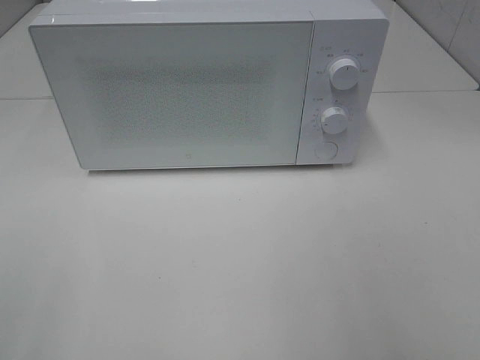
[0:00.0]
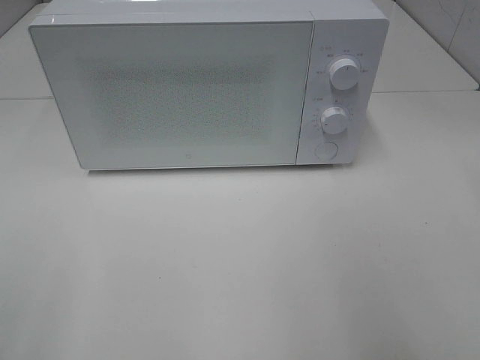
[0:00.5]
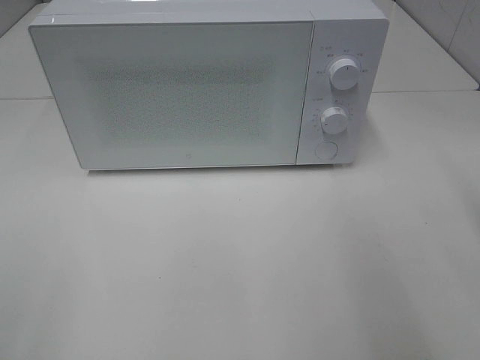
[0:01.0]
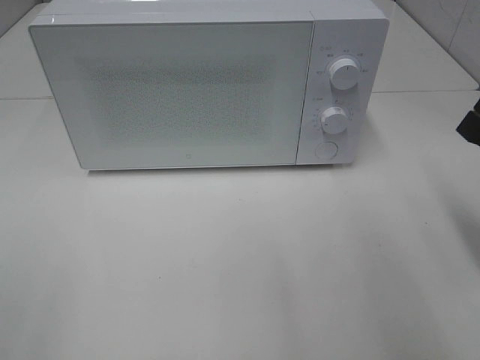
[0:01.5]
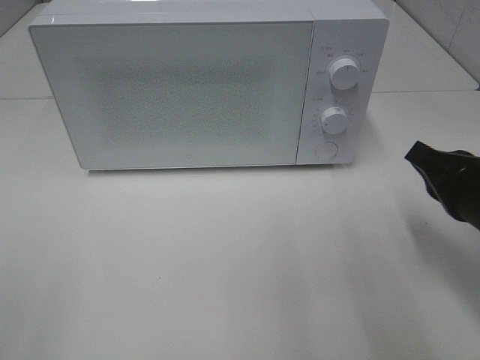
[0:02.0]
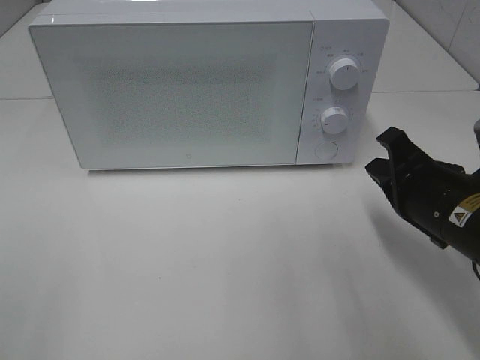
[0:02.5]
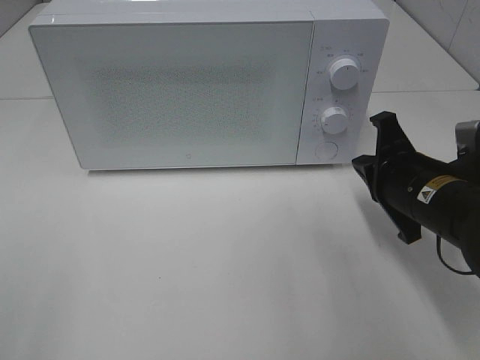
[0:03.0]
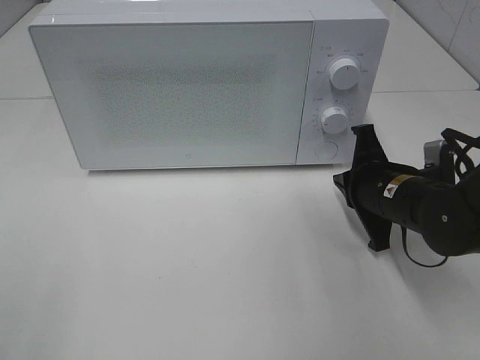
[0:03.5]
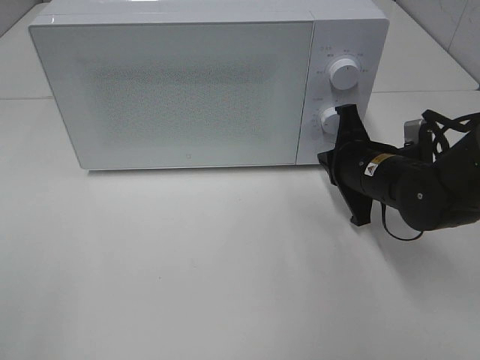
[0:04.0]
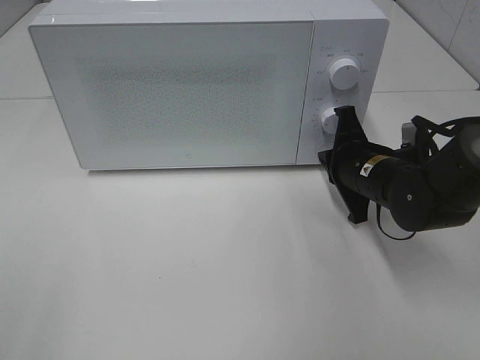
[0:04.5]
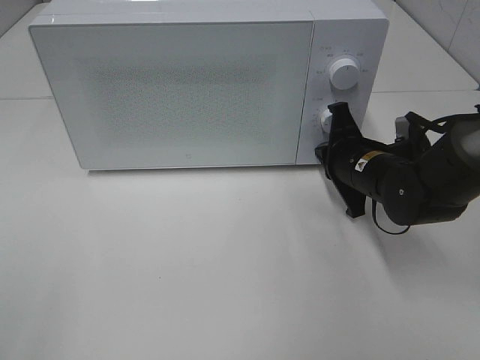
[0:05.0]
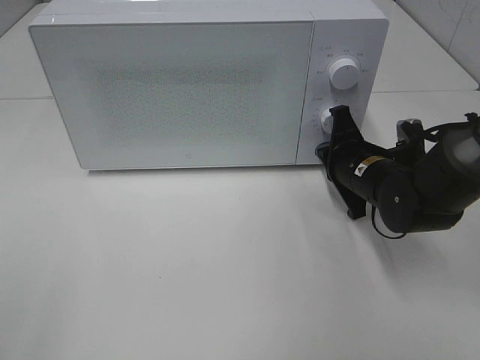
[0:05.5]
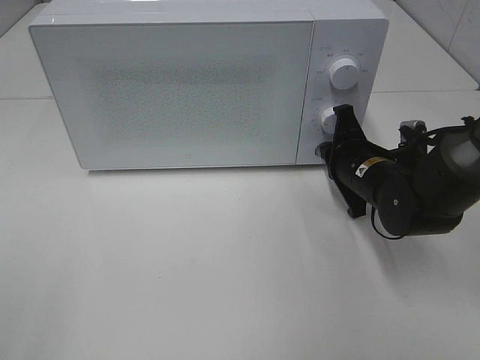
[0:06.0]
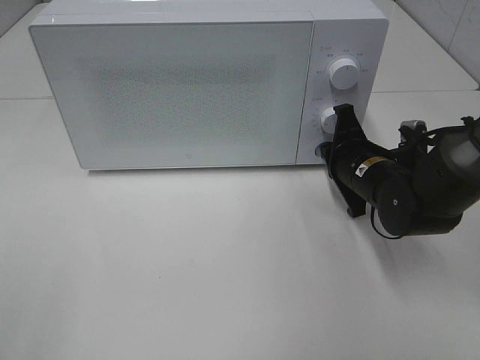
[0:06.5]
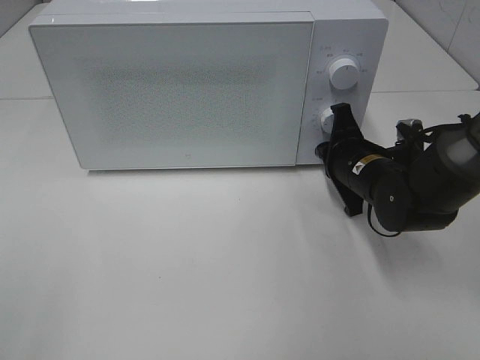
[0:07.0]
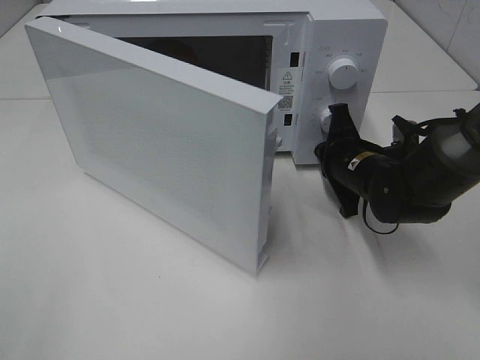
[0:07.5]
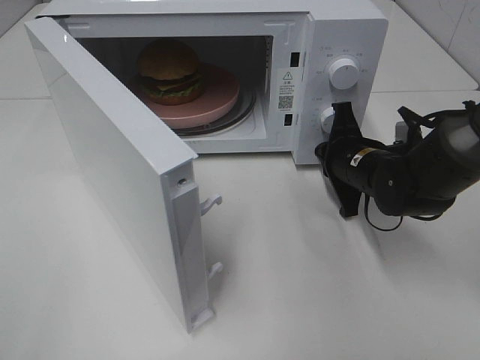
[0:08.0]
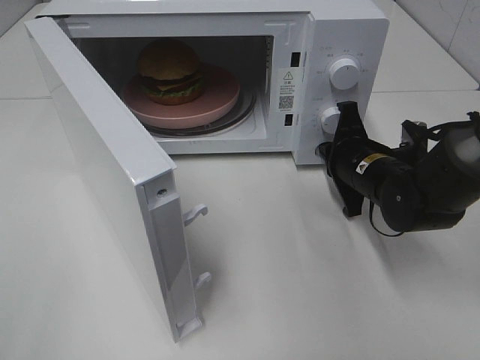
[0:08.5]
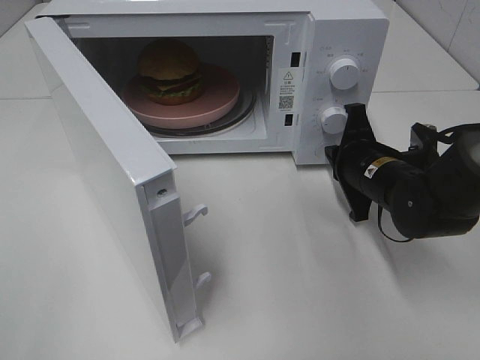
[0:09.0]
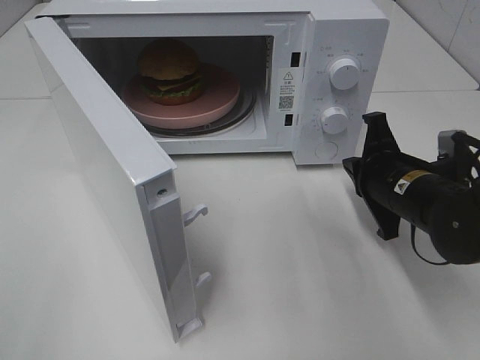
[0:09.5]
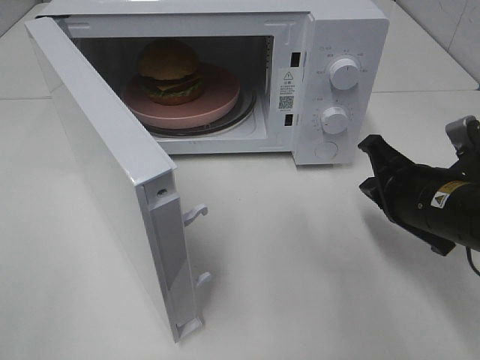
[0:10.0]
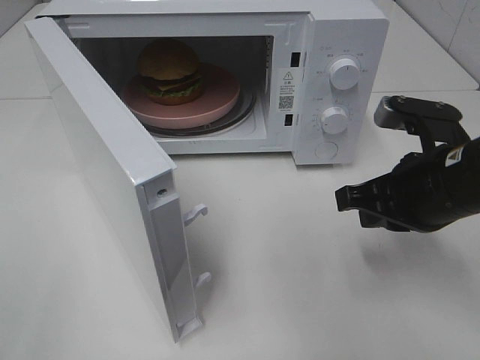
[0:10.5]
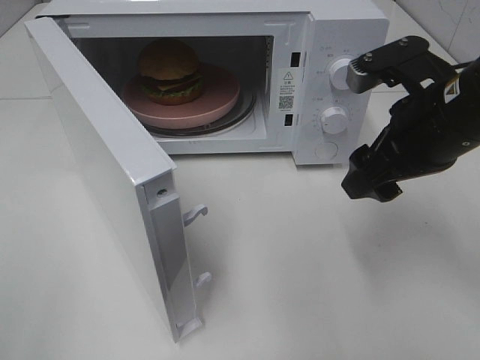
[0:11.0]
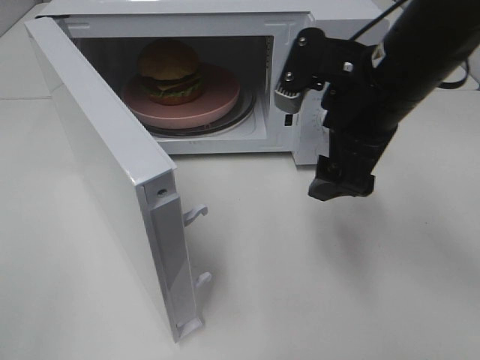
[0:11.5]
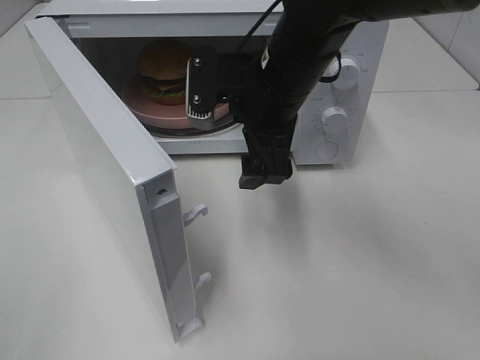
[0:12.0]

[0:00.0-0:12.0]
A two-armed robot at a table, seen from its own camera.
Task of the whole recording: Heat the burger.
Step, 0.0 to 8.5 s: Right hand: press the switch.
0.0 to 2.0 s: The right gripper heads forward and downward, covering about 25 cm, and closes its fingers.
2.0 to 4.0 s: The right gripper moves forward, to the left and downward, approximately 15 cm.
4.0 to 6.0 s: The grippers stay close to where they were, moving slightly.
8.0 to 10.0 s: The right gripper travels backward and upward by some 10 cm.
10.0 to 12.0 s: The right gripper moves to the left, upward and forward, some 20 cm, and opens up.

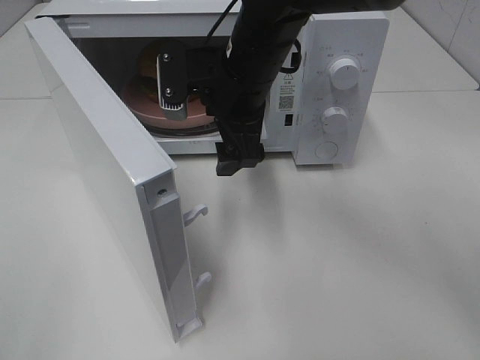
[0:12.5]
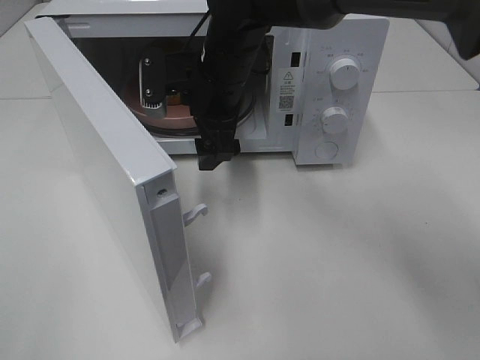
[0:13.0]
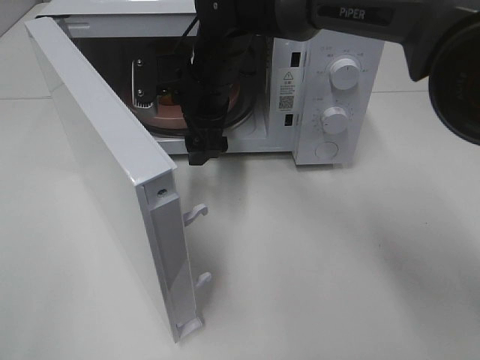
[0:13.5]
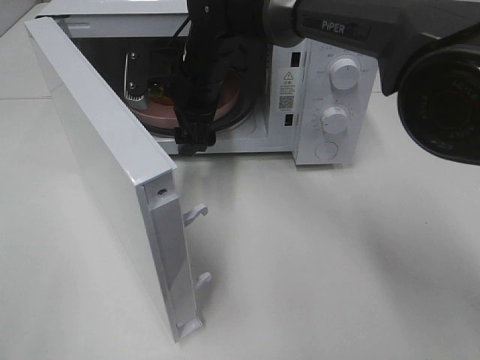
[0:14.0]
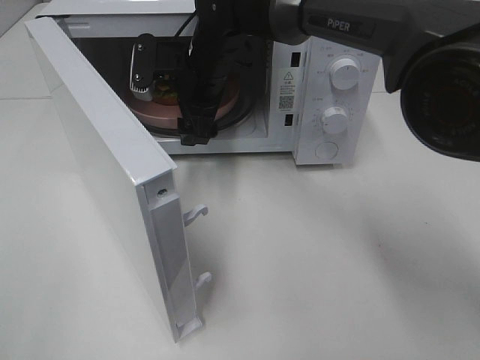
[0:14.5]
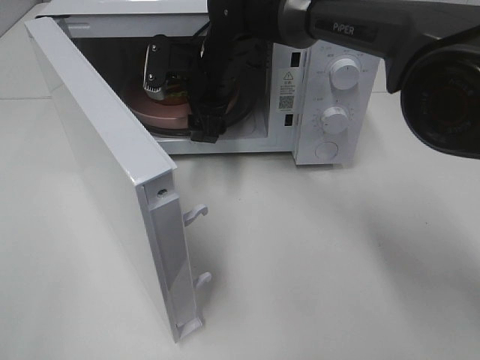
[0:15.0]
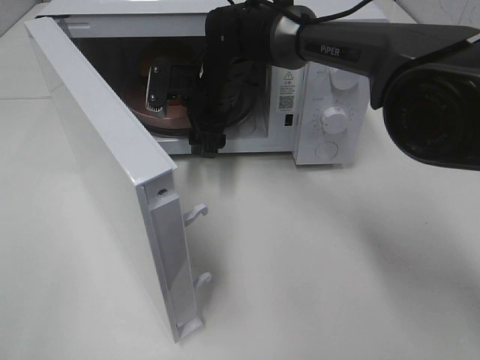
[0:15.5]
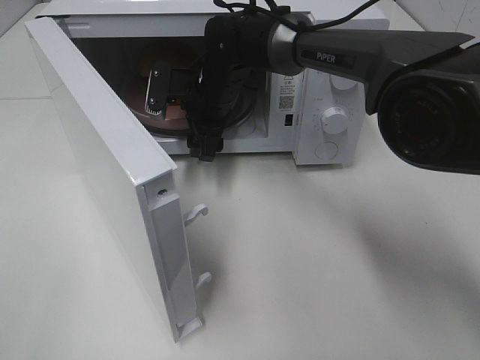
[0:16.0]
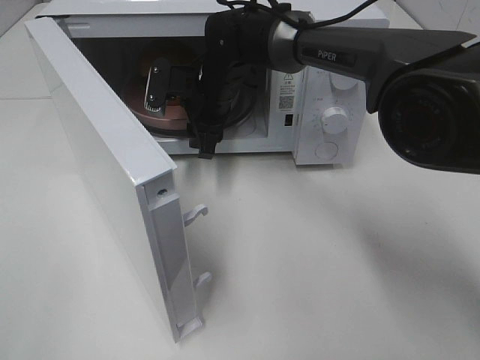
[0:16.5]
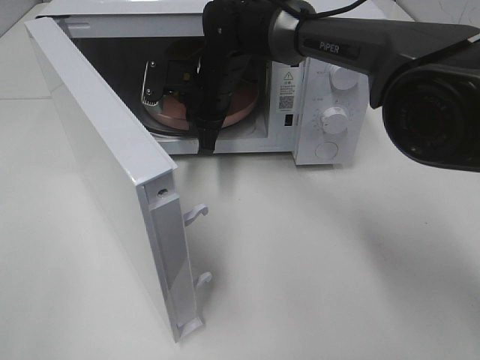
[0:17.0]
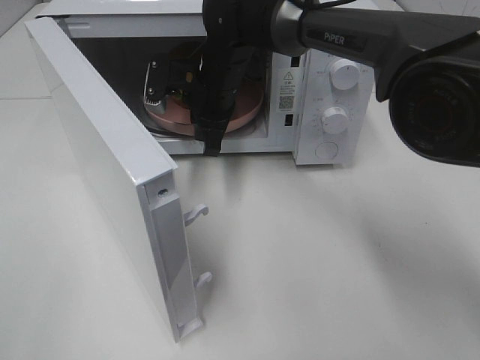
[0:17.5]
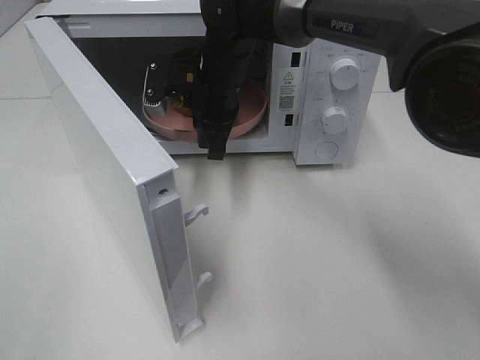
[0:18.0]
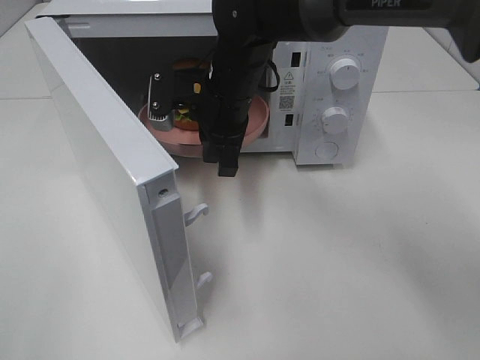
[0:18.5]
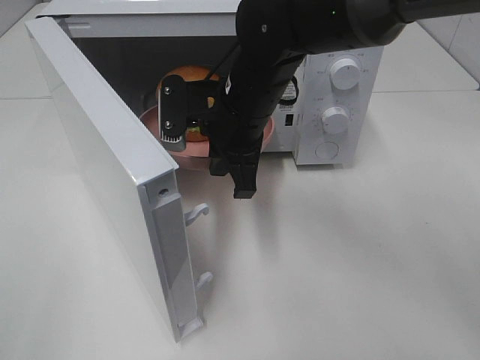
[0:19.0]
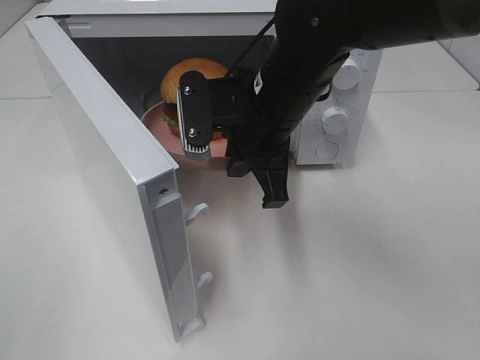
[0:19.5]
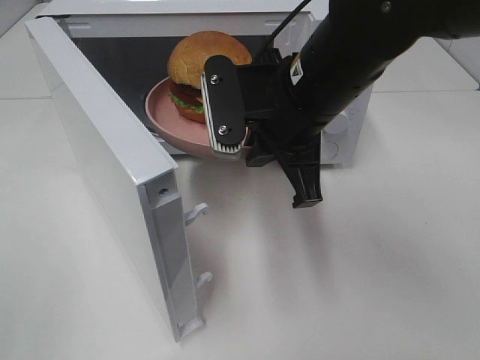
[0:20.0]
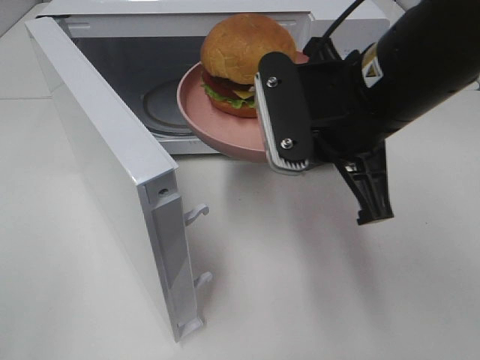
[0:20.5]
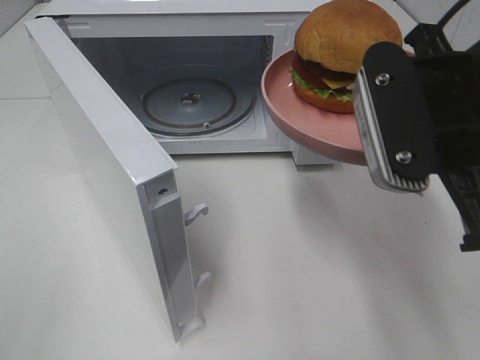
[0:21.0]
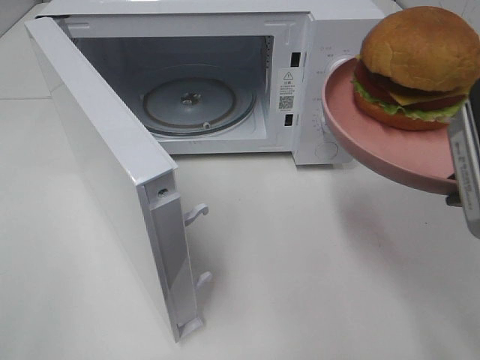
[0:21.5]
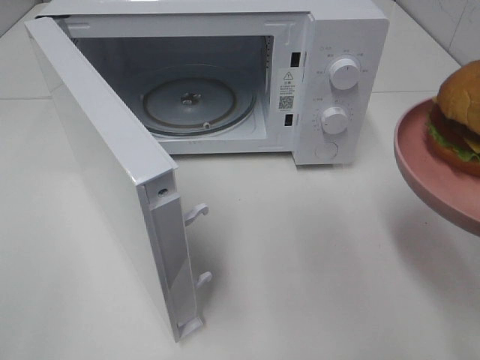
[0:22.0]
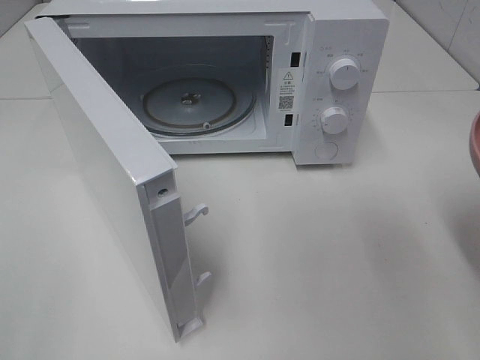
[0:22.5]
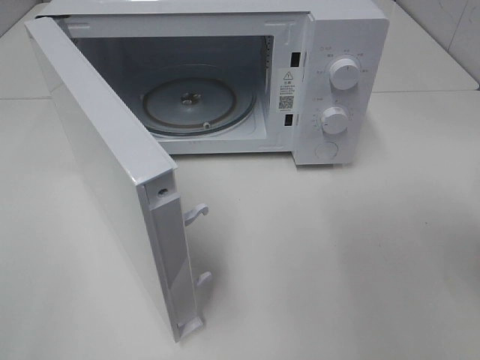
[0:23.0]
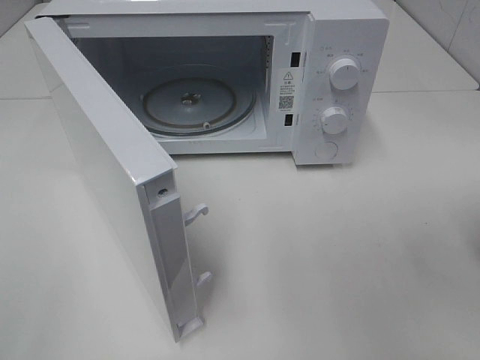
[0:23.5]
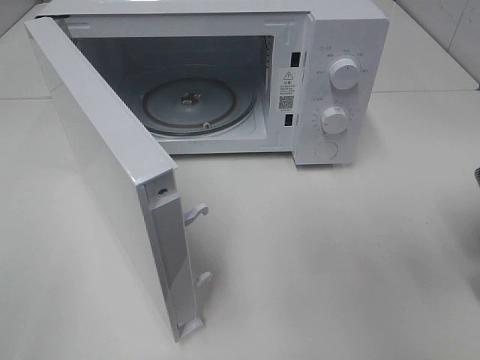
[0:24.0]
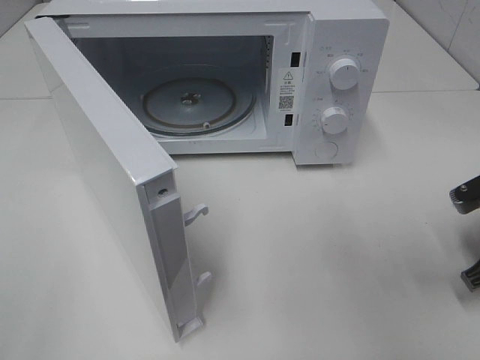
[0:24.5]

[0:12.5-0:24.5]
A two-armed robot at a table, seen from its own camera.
Task of the whole recording: Heat the burger.
Step, 12.5 to 16.5 s: Right hand: grab the plate with the hamburger.
12.5 to 14.5 s: The right gripper moves forward, roughly 10 cm.
14.5 to 16.5 s: The right gripper closes up.
16.5 to 18.5 s: The right gripper goes approximately 5 cm backward, and closes up.
18.5 to 20.5 s: The right gripper is displaced backward, to the right and upward by some 20 cm.
20.5 to 22.5 s: The right gripper is displaced to the right and backward by roughly 20 cm.
22.5 to 24.5 s: The right gripper is displaced downward and forward by about 15 cm.

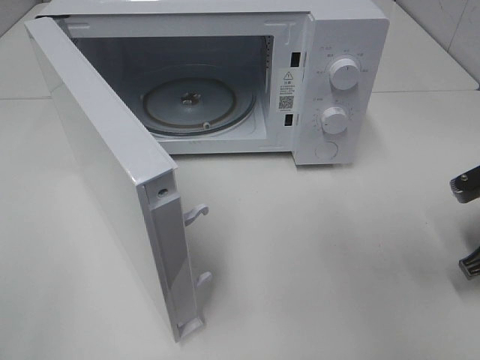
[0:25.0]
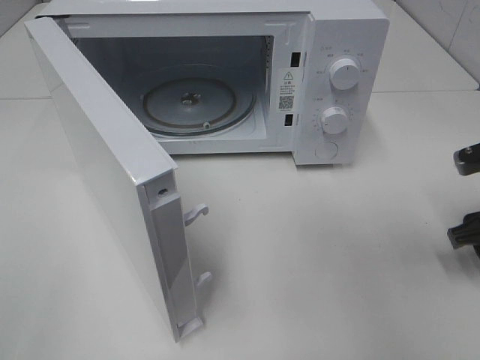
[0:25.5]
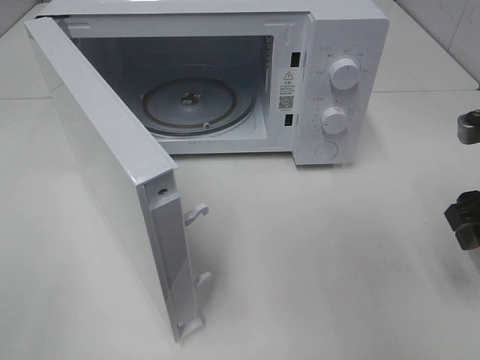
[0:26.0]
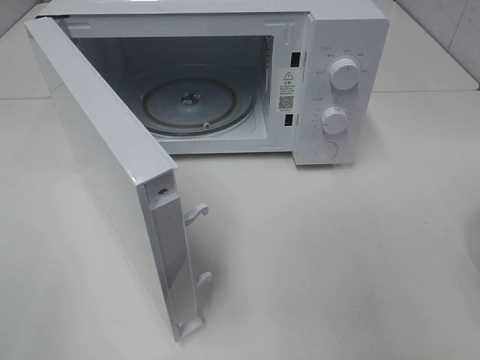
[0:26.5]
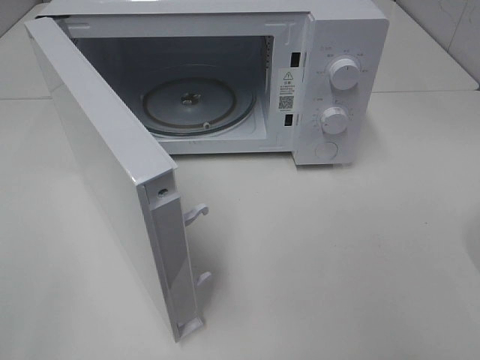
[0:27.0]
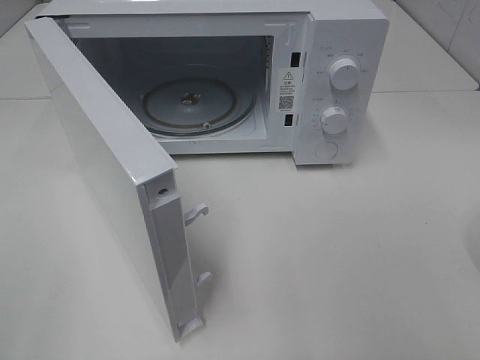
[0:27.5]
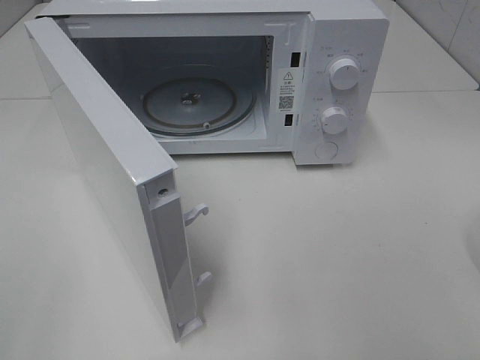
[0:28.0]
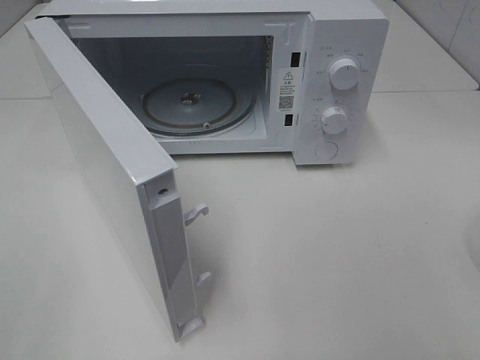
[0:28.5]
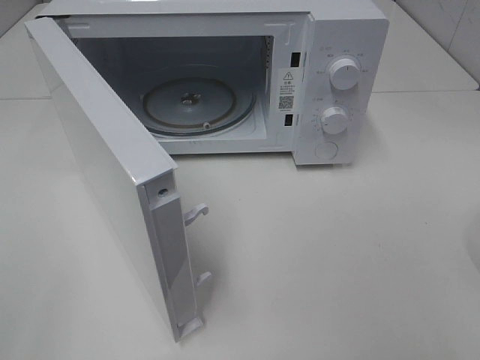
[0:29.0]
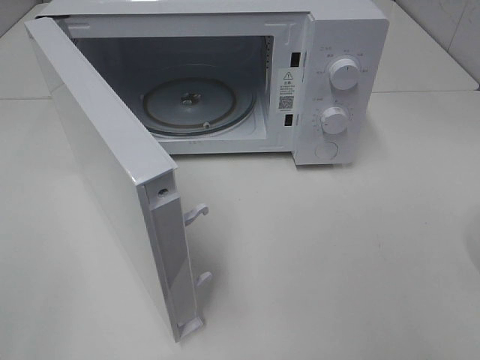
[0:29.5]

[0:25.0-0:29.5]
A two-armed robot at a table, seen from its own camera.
Task of the whole recording: Heat the burger.
25.0 to 27.0 s: The right gripper heads upward and backward, covering roughly 25 cm, and opens up.
